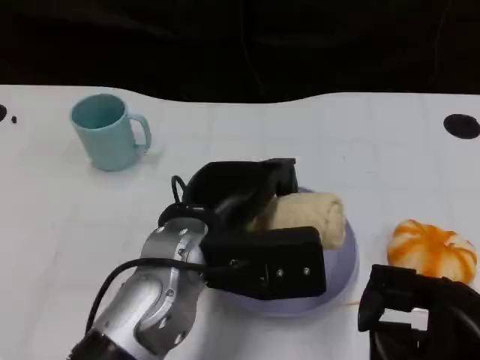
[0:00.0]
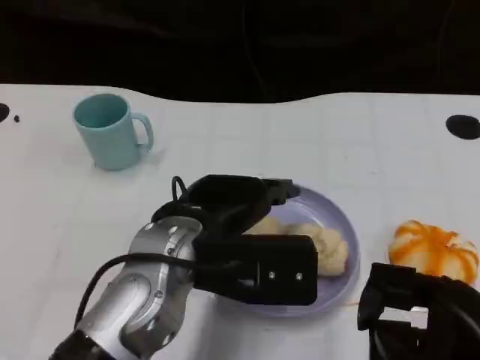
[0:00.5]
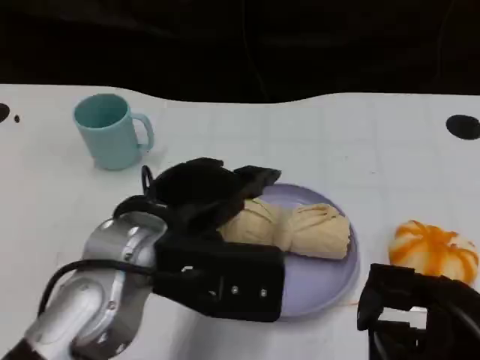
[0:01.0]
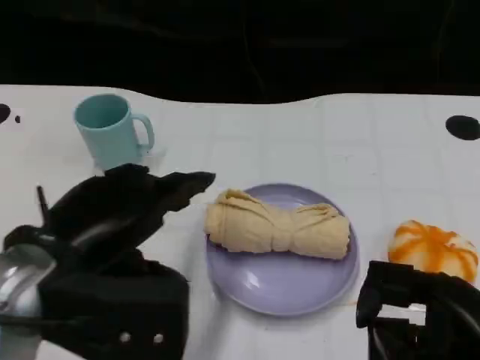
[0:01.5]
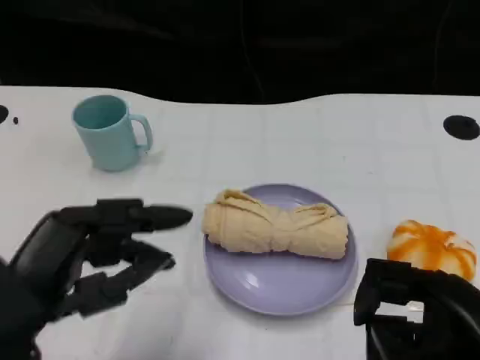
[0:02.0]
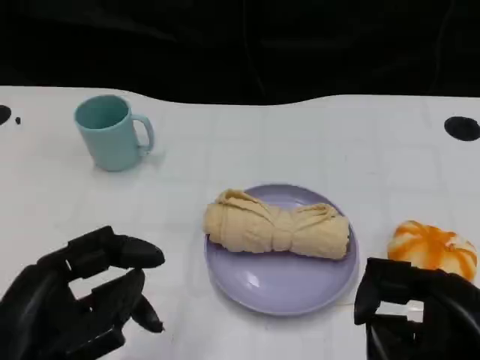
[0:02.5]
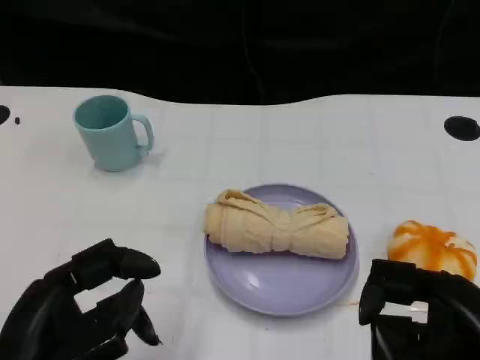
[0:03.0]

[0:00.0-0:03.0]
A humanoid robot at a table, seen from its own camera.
Task of the whole recording: Grasp the towel on the left side of the plate with the left hand and place it into the plate.
0:00.0 to 0:01.5: The left hand is displaced to the left and backward by some 15 cm.
0:01.5 to 0:03.0: The left hand travels backward and downward by some 10 cm.
